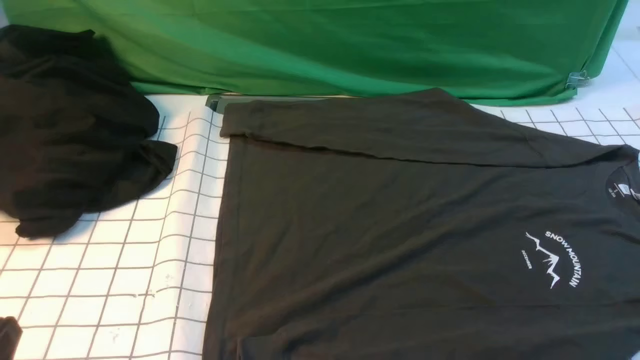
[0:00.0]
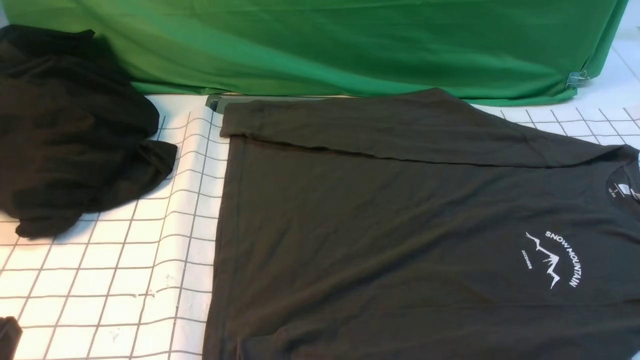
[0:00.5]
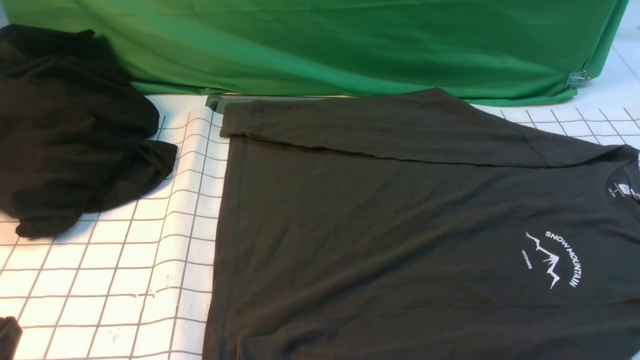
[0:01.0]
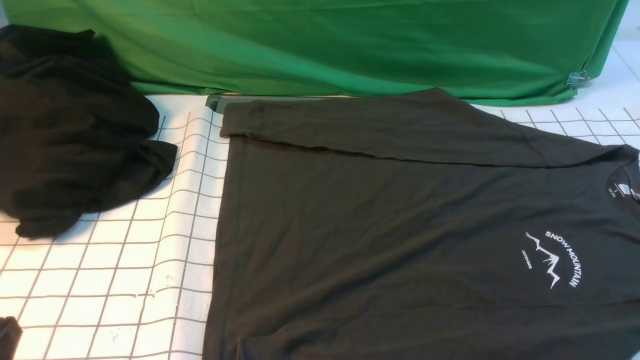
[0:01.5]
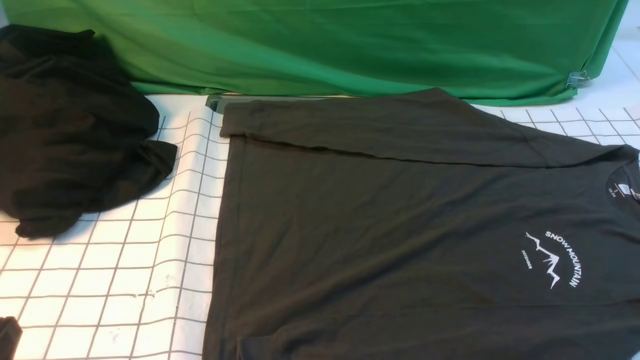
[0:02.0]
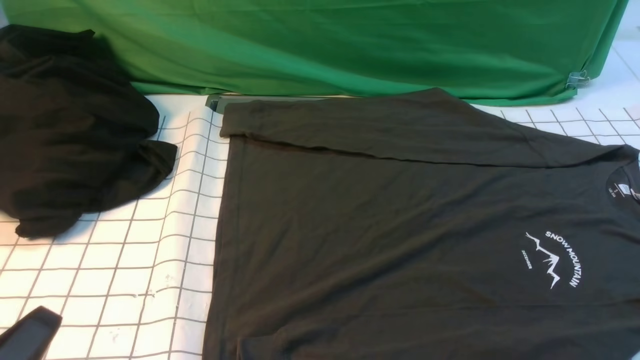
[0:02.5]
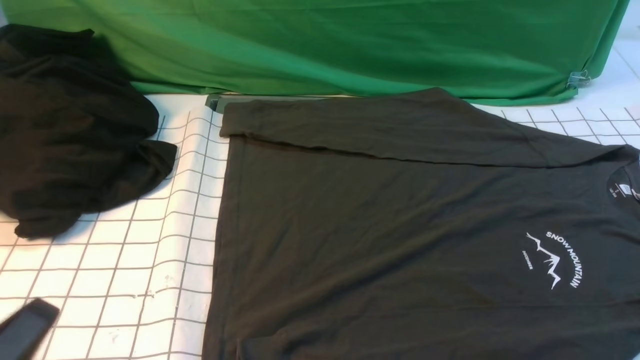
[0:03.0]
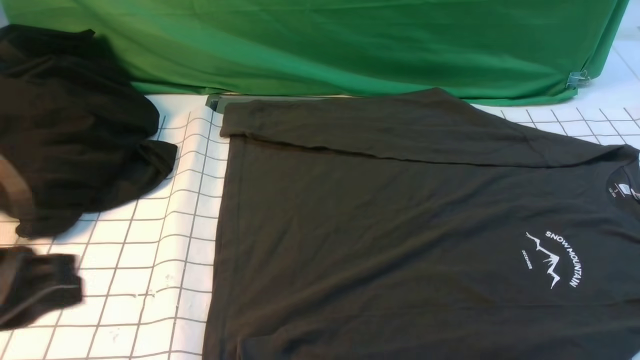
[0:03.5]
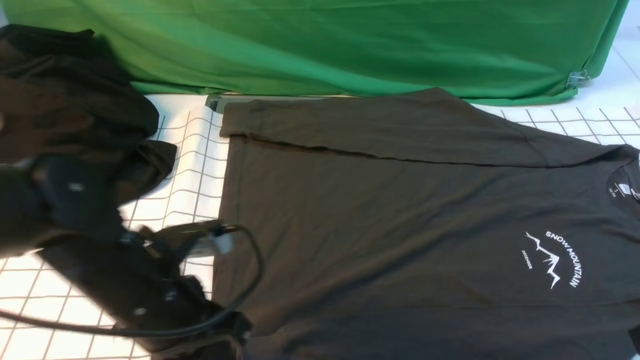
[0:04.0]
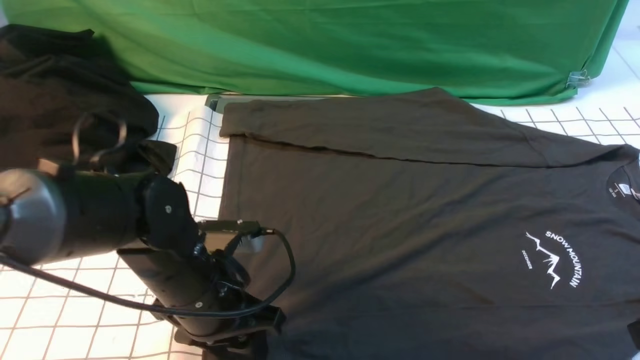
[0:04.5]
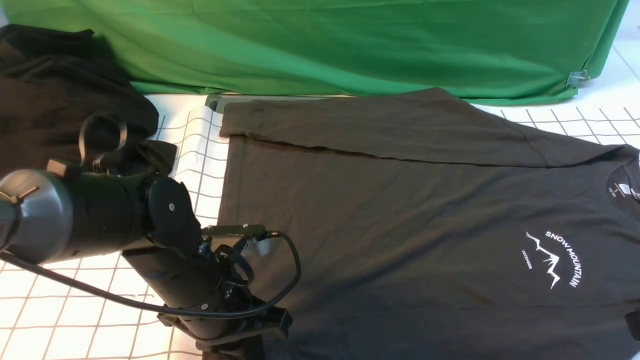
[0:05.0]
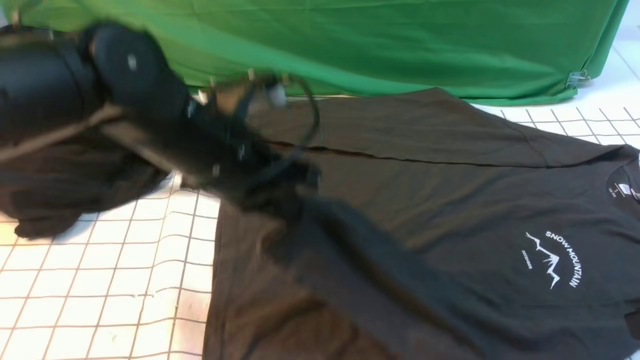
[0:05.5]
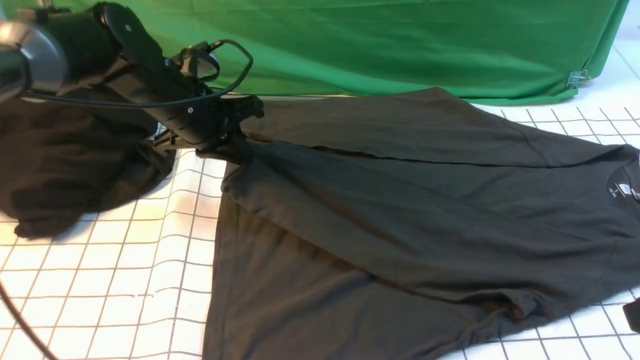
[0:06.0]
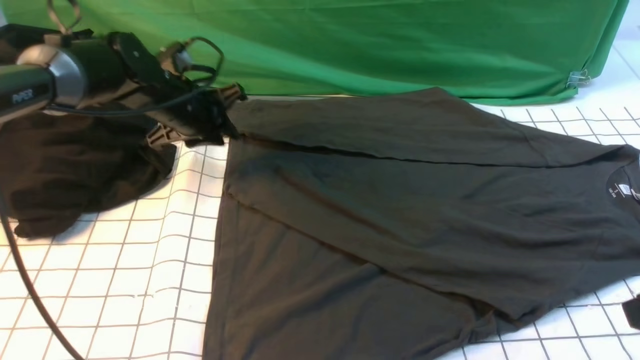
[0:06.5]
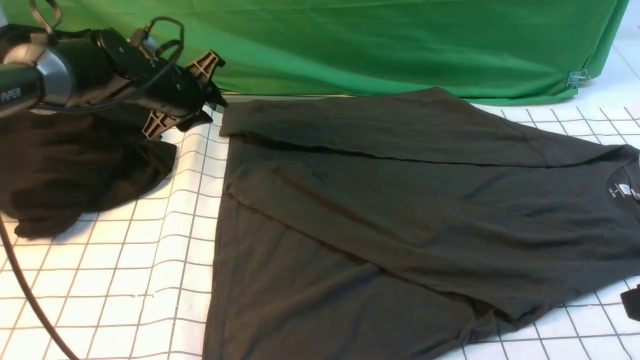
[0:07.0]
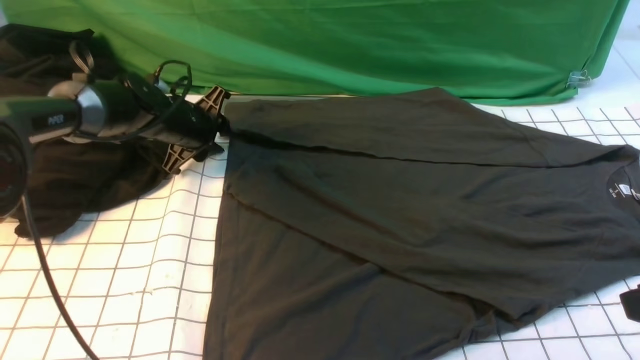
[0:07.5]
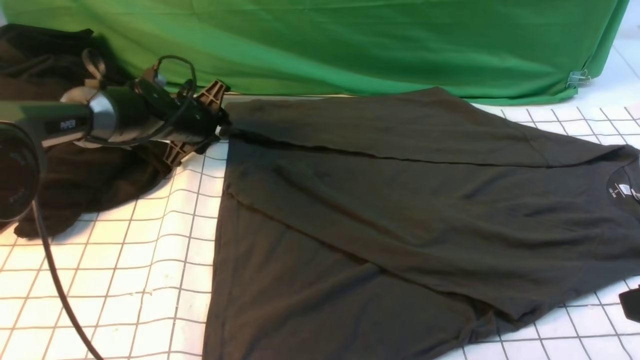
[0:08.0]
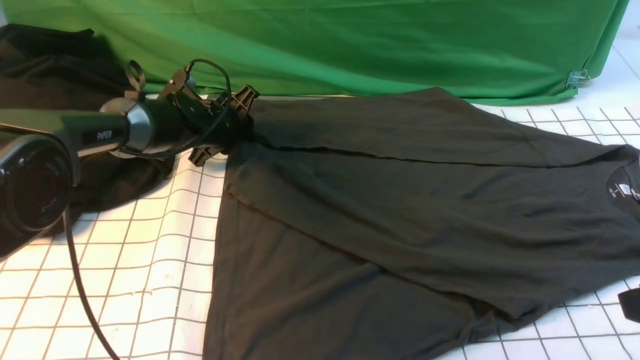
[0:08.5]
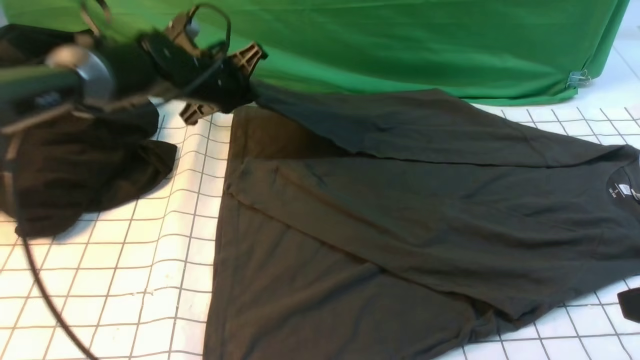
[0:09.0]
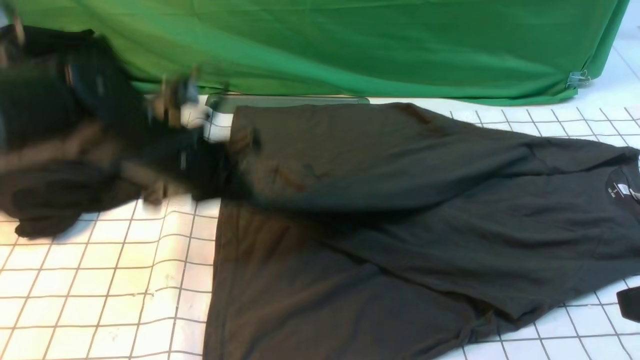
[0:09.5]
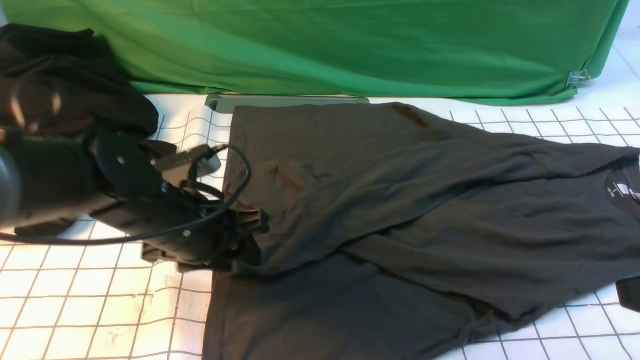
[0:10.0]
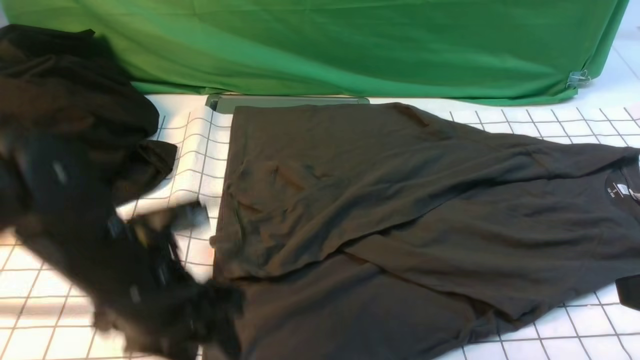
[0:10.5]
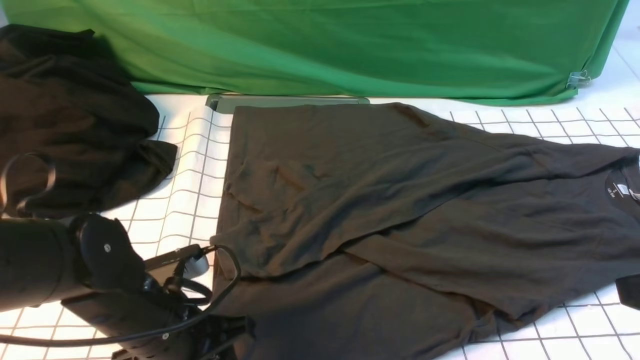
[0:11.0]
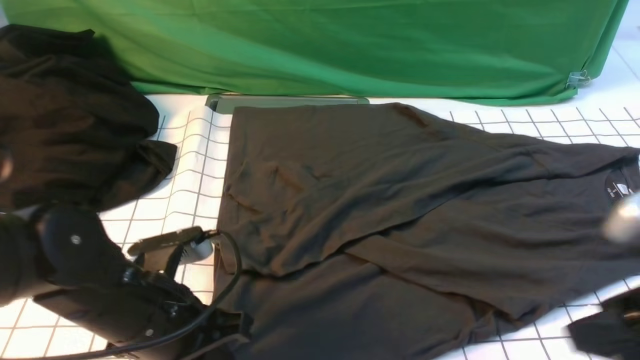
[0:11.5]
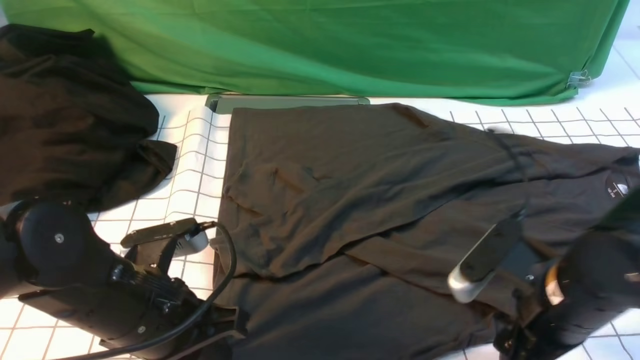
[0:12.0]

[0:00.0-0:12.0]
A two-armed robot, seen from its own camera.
Step, 0:00.0 to 0:05.0: use the left arm to clamp the cuff closest to it.
Step, 0:05.5 to 0:06.5: use the left arm to drag and place the cuff at the centered position on the left edge of the fabric.
Step, 0:07.0 to 0:08.5: use the left arm to clamp the cuff farthest from it.
Step, 0:09.0 to 0:10.0: use the left arm to drag and drop the cuff onto the cuff closest to the left arm.
0:00.0 to 0:02.0: The two grippers keep their place.
0:02.0 to 0:04.0: The left gripper travels forward and to the right by about 20 cm; the right gripper heads upward and forward, covering approximately 15 cm, and closes.
0:04.0 to 0:06.0: The left gripper shifts approximately 20 cm forward, and opens and closes again.
0:06.0 to 0:08.0: The left gripper moves downward and forward, about 10 cm, and opens up.
0:08.0 to 0:10.0: The left gripper moves backward, about 20 cm, and closes, then opens again.
0:10.0 to 0:12.0: The left gripper moves backward, some 10 cm, and closes up; the right gripper goes about 15 cm downward, to the left and forward, and opens.

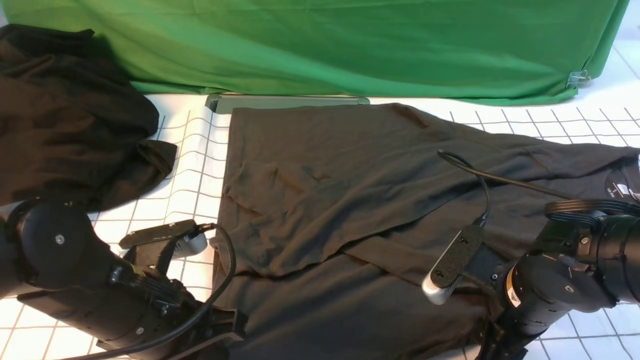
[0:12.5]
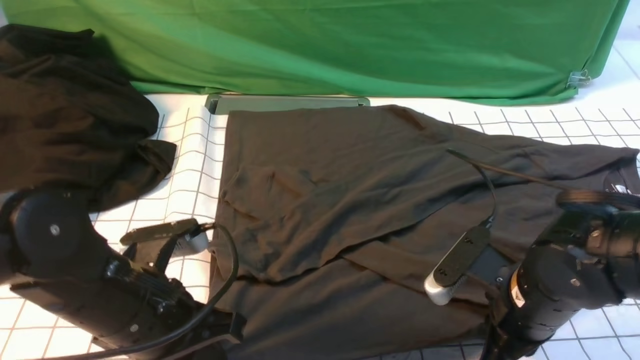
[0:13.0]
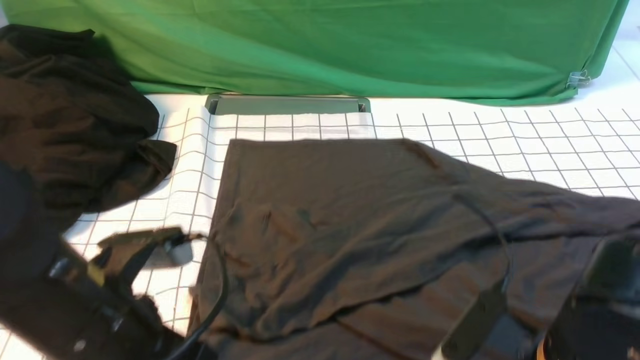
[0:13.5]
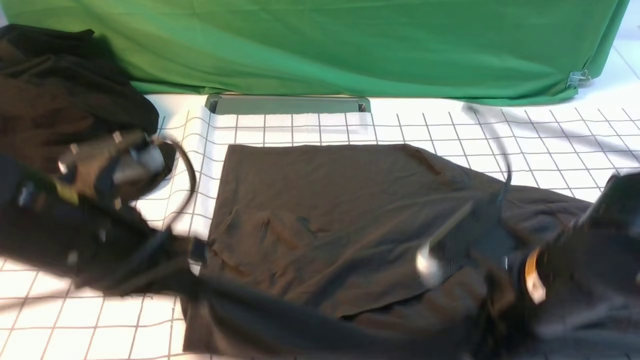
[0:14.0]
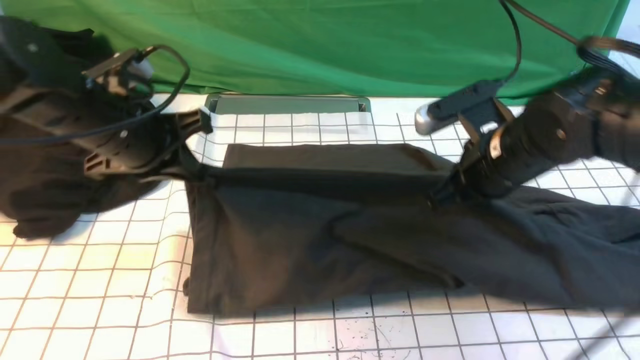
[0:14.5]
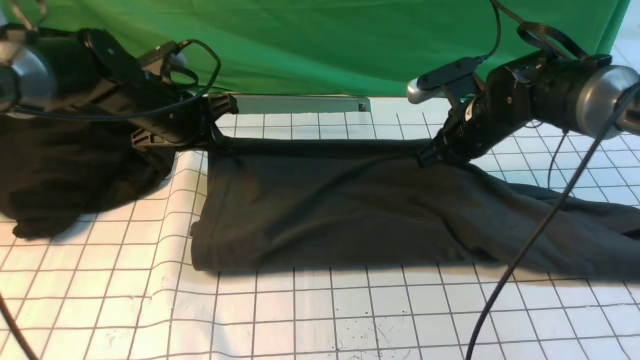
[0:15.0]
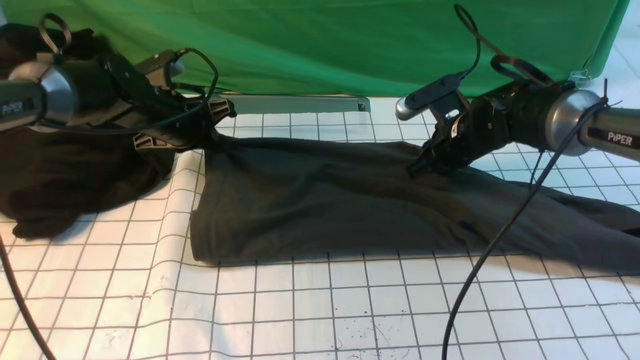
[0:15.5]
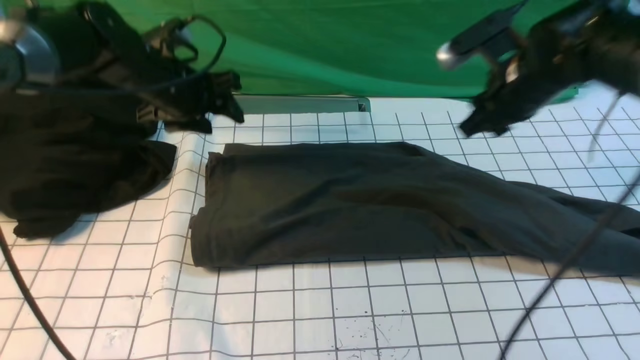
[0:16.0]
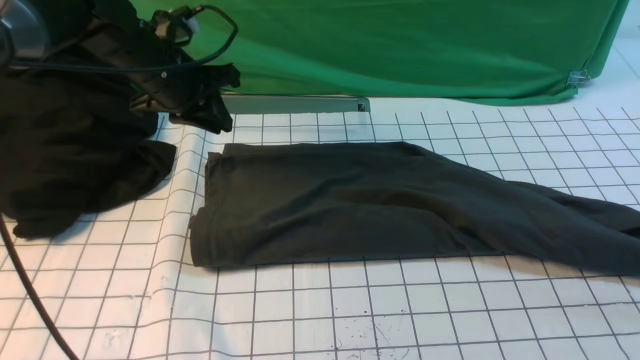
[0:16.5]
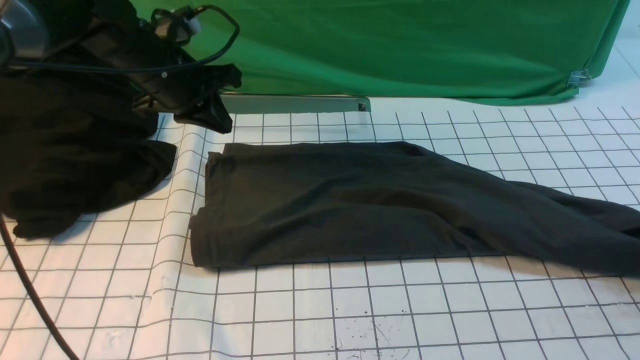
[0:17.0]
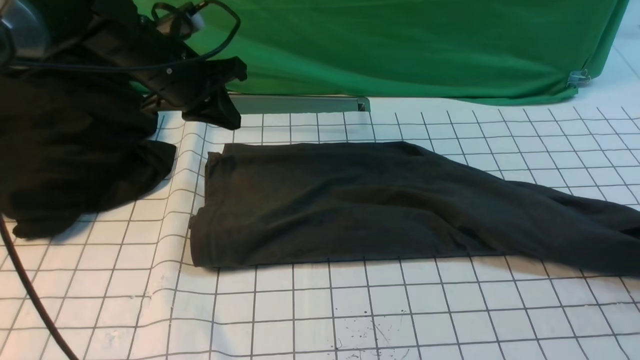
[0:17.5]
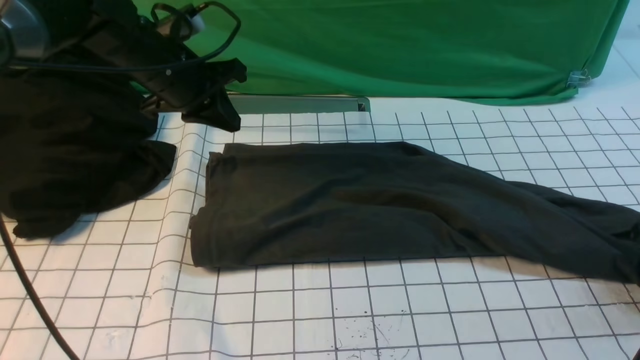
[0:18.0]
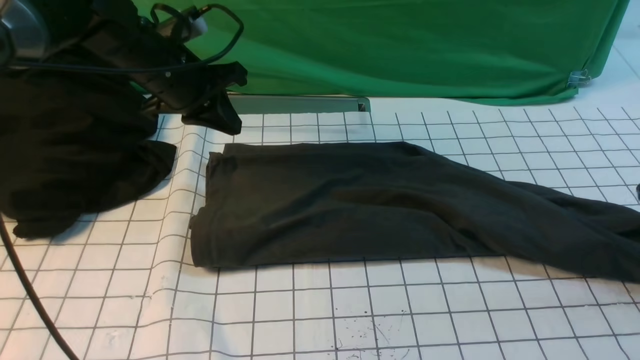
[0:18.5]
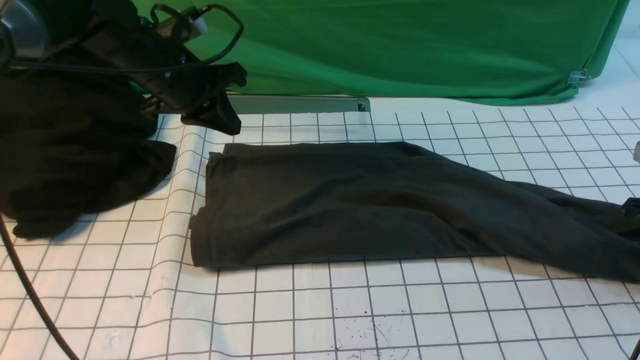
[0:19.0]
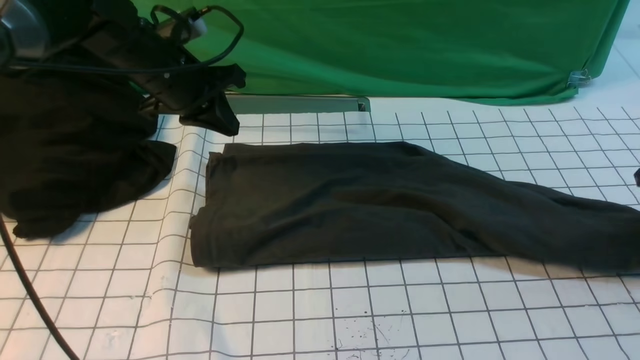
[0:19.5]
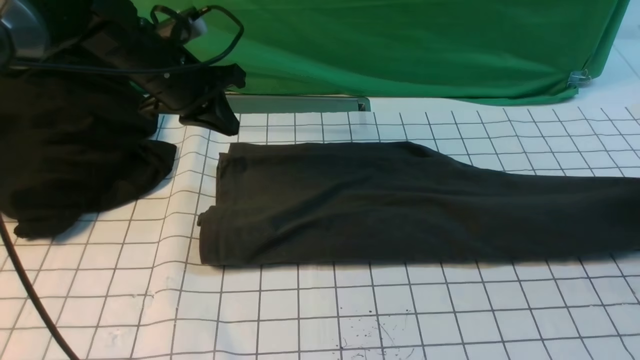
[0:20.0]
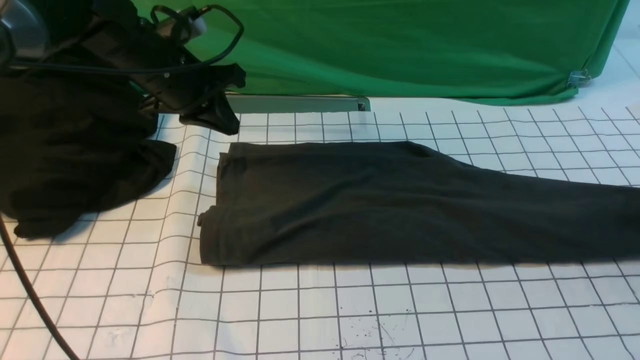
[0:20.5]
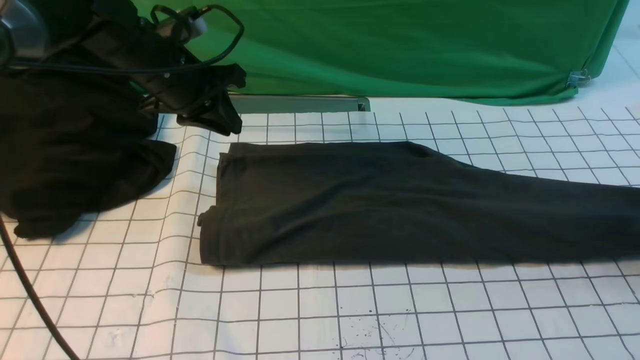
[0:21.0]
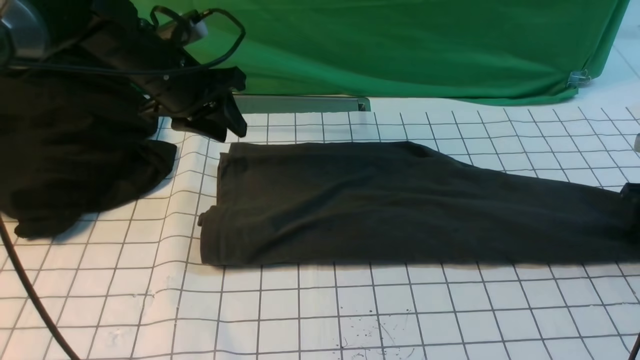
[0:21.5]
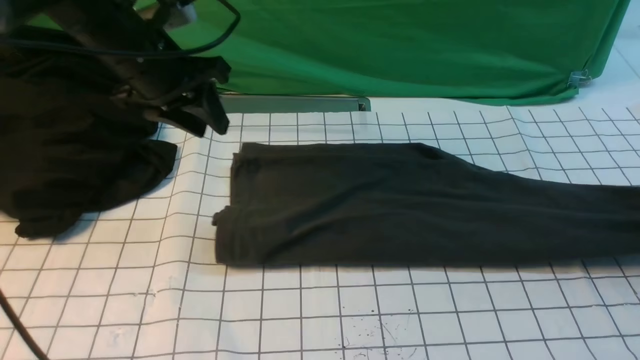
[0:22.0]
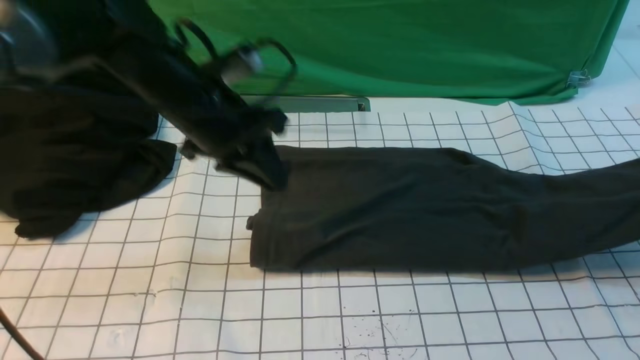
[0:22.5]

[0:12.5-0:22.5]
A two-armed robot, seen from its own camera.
Step, 0:14.0 to 0:15.5: use both arms to drag the lower edge of the fabric forward and fold it over the upper edge.
Step, 0:16.0 to 0:22.0: use the right arm to clamp the right edge of the fabric.
0:12.5 to 0:14.5: Both grippers travel together forward and upward, some 15 cm. The right gripper closes up.
0:14.5 to 0:16.5: The right gripper travels to the right by about 20 cm, and opens, then closes once more. Meanwhile the left gripper travels forward by roughly 10 cm, and opens and closes again.
0:16.5 to 0:18.5: The right gripper travels downward by some 10 cm, and opens up.
0:18.5 to 0:20.5: The right gripper ends up roughly 5 cm from where it was, and closes, then opens again.
0:20.5 to 0:22.5: The left gripper is displaced backward and to the right by roughly 10 cm, and opens and closes again. The right gripper heads upward, covering some 5 cm, and closes.
